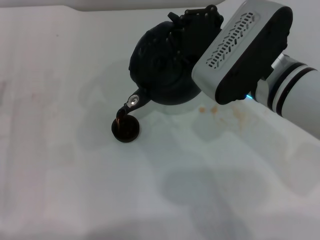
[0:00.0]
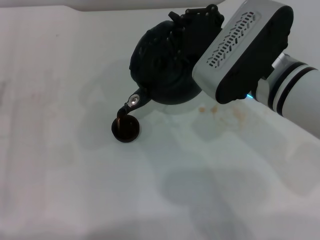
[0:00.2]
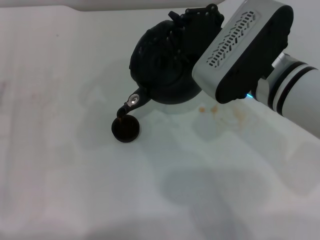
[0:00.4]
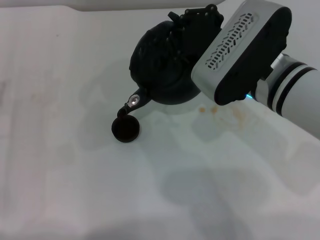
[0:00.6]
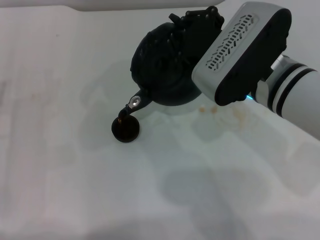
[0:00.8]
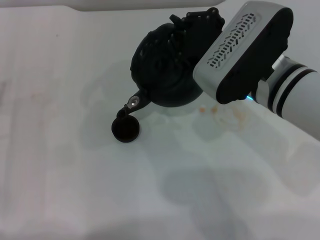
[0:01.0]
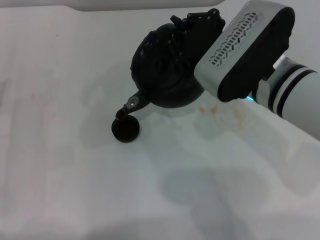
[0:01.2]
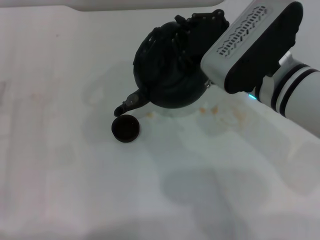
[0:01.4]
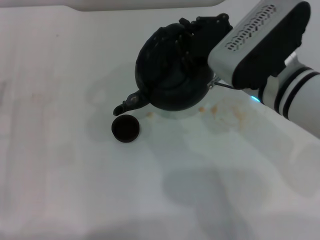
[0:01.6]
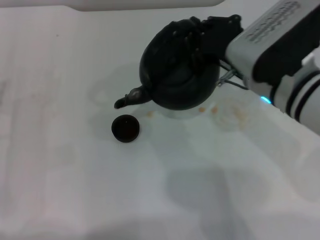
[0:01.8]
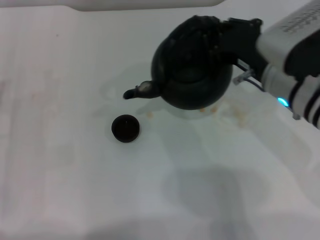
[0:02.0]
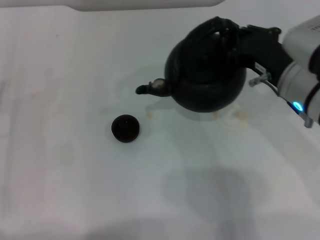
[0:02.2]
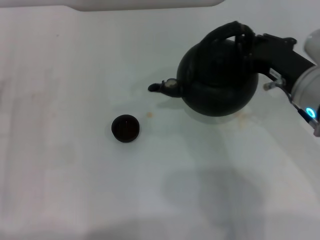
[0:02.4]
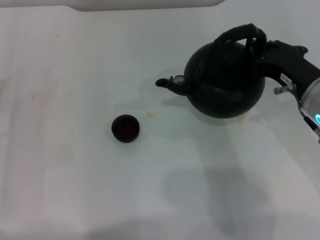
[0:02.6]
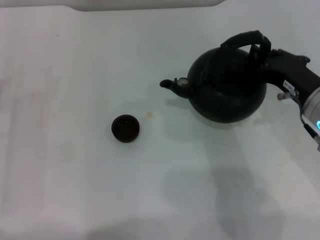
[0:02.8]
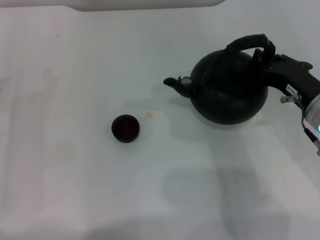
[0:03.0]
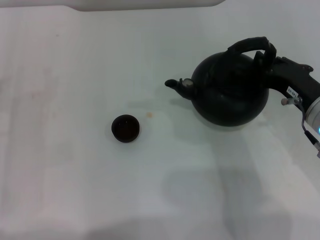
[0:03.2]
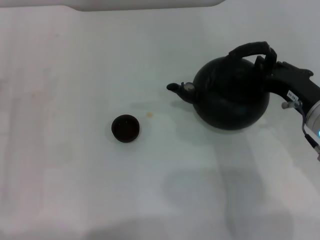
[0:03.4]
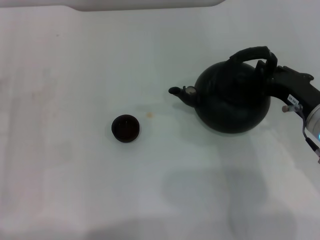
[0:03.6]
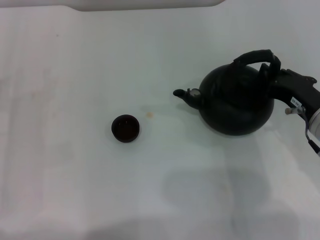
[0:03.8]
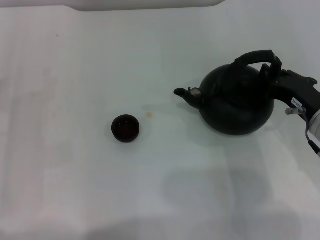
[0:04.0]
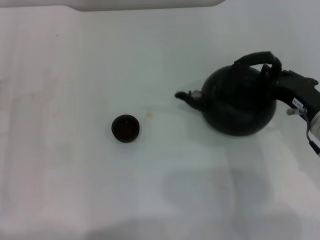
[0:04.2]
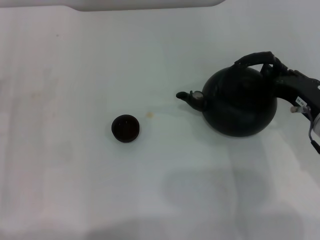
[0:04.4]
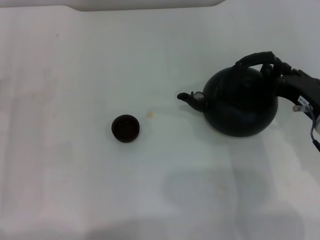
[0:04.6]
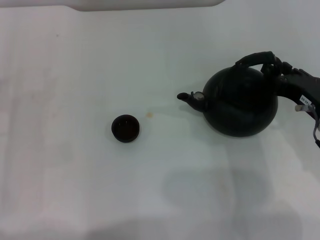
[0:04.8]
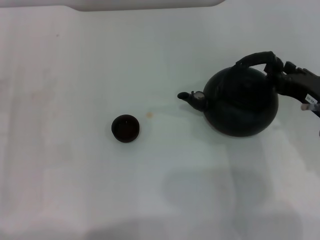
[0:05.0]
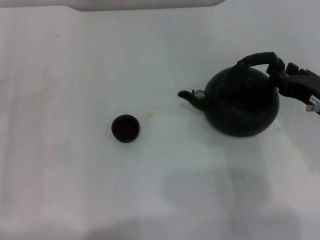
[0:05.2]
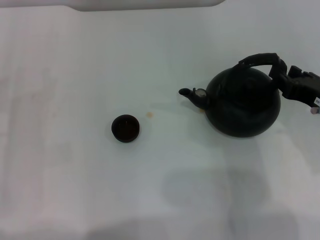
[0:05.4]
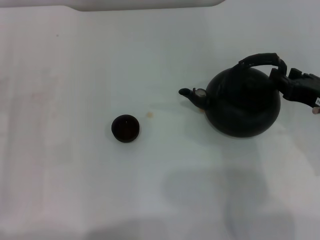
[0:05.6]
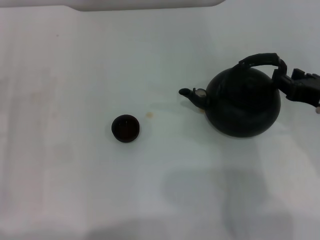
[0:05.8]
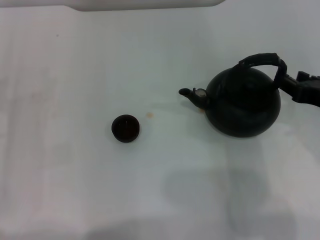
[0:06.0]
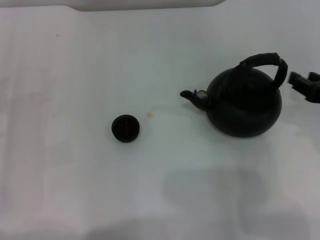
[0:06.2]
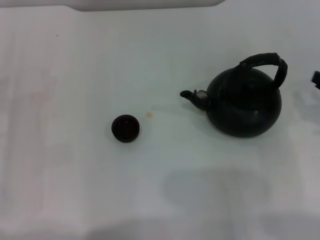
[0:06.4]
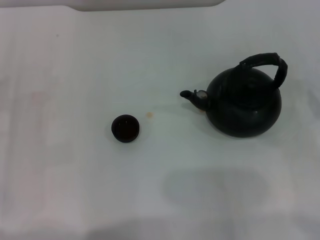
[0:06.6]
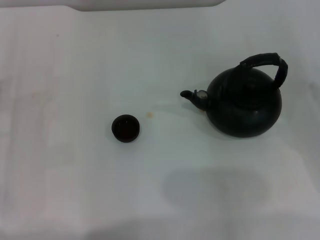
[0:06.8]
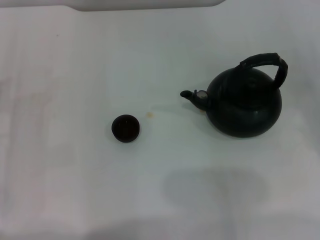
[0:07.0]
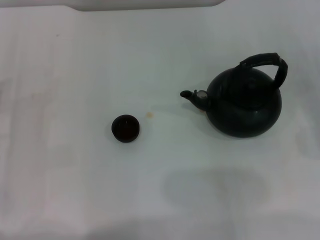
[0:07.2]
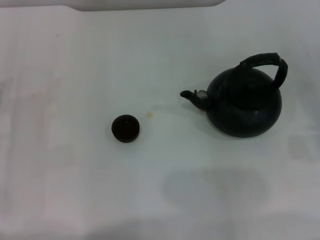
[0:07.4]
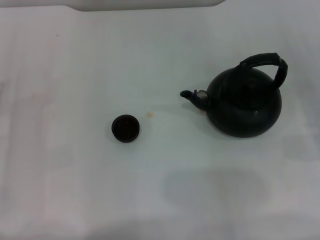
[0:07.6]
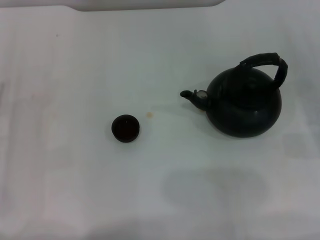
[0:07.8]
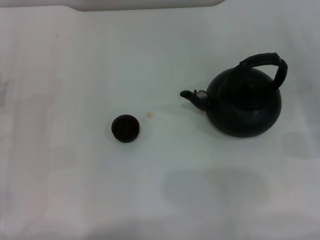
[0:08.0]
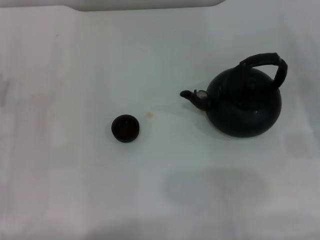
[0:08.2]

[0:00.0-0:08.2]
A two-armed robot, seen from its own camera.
Task of the whole recording: Grasp the handle of the teapot with one hand and pour tea into the teacup.
Step, 0.0 to 2.0 s: Pour tea into the teacup with the right gripper.
Step, 2.2 to 6.2 s: Put down the teapot with the right gripper.
0.0 to 1.6 s: The grippers make only small movements.
1.6 to 3.2 s: The right gripper is displaced to the right and downward by some 10 cm.
3.2 to 5.0 s: The right gripper opens up.
5.0 to 6.6 s: The right gripper heads to the right, covering roughly 10 cm.

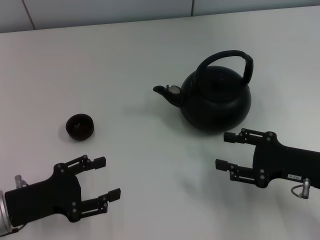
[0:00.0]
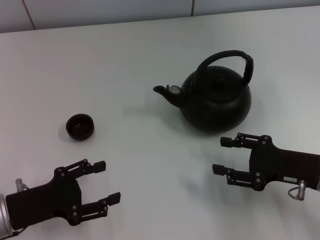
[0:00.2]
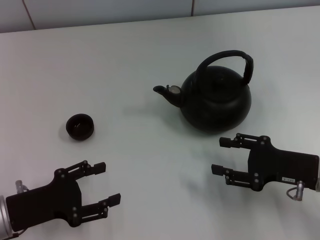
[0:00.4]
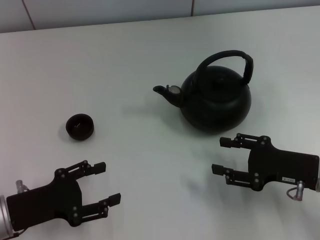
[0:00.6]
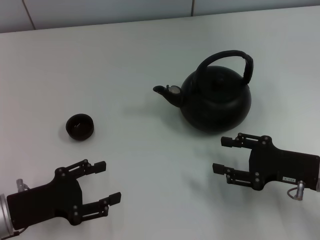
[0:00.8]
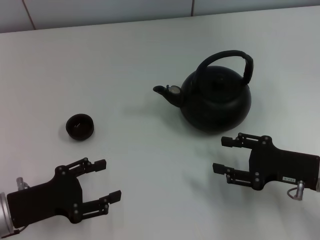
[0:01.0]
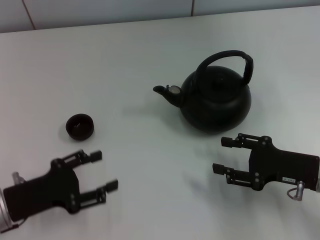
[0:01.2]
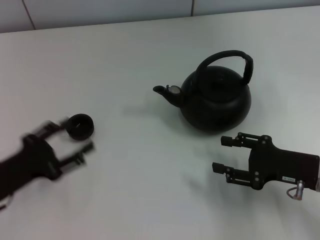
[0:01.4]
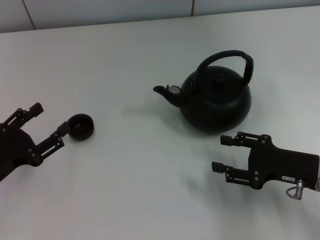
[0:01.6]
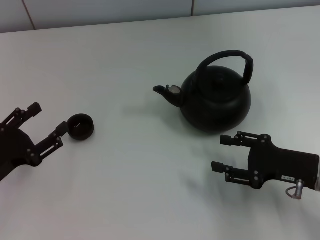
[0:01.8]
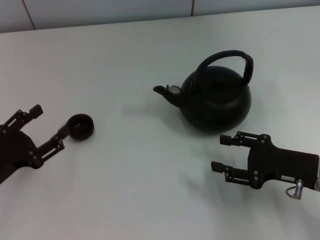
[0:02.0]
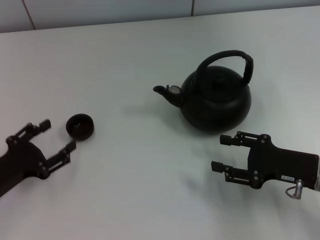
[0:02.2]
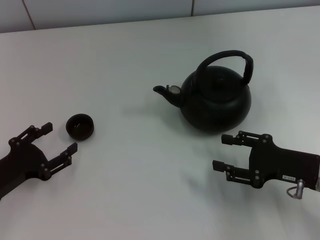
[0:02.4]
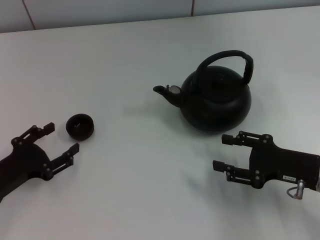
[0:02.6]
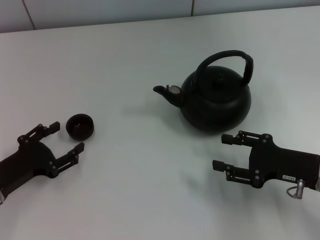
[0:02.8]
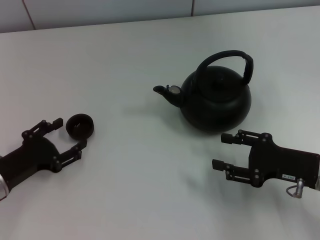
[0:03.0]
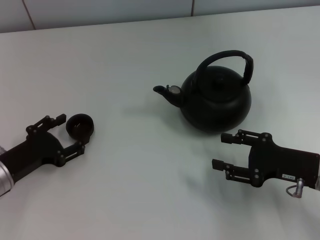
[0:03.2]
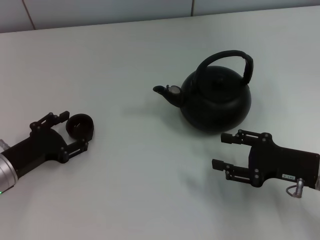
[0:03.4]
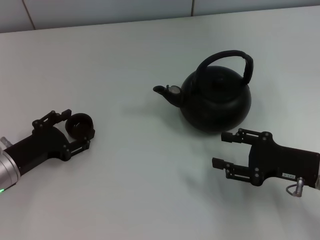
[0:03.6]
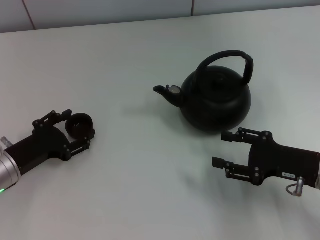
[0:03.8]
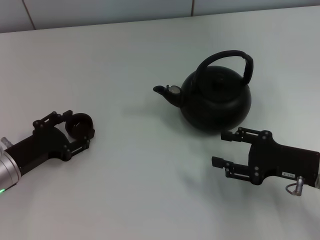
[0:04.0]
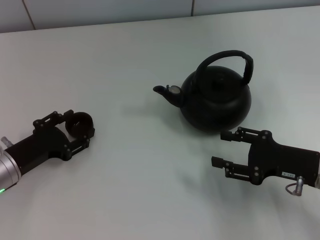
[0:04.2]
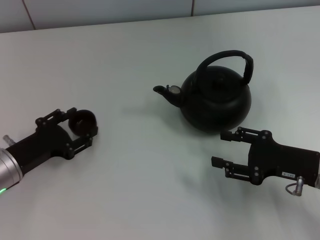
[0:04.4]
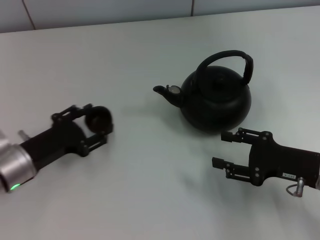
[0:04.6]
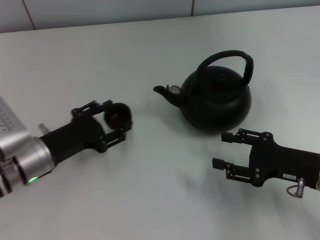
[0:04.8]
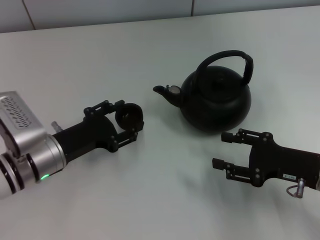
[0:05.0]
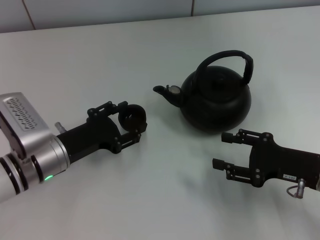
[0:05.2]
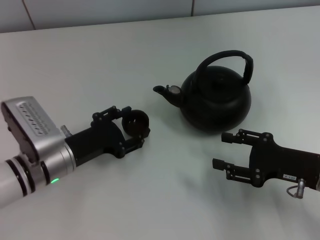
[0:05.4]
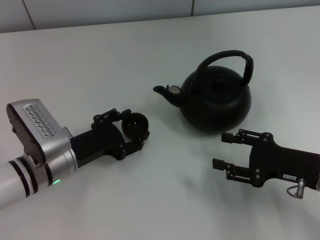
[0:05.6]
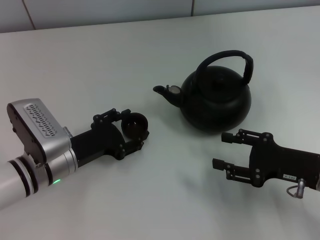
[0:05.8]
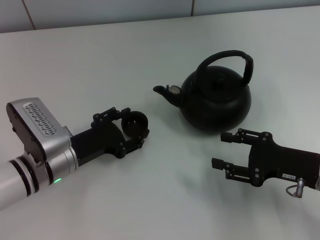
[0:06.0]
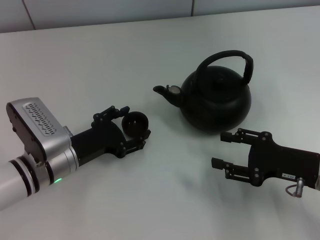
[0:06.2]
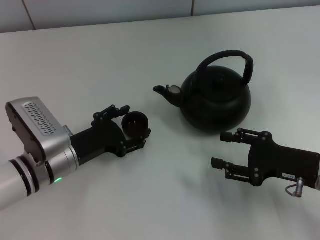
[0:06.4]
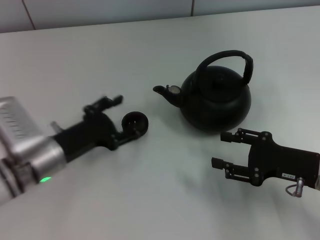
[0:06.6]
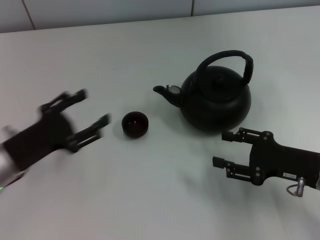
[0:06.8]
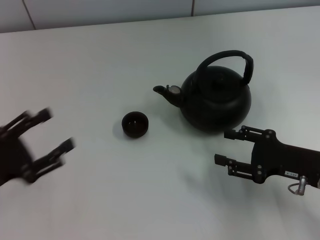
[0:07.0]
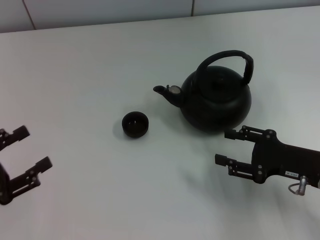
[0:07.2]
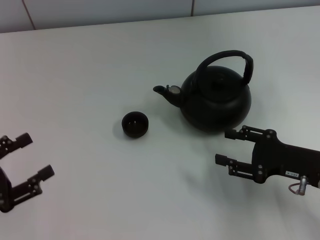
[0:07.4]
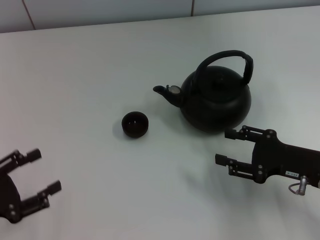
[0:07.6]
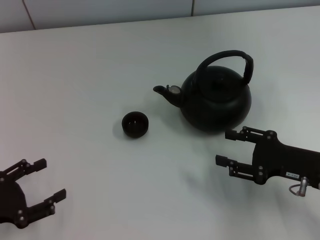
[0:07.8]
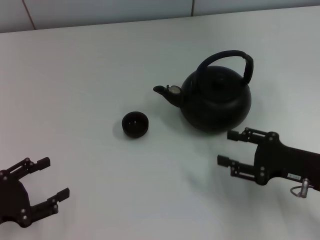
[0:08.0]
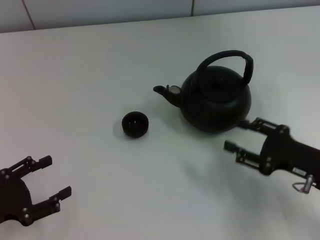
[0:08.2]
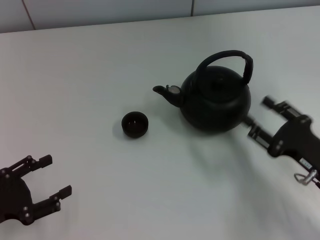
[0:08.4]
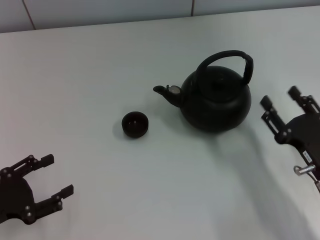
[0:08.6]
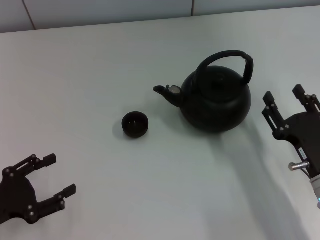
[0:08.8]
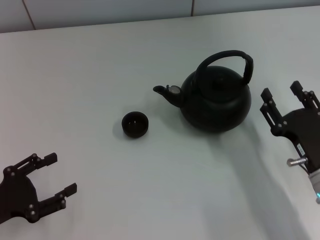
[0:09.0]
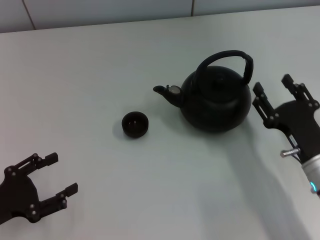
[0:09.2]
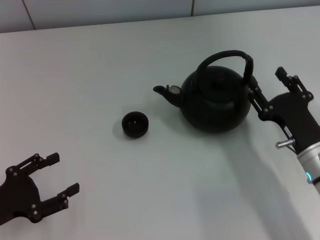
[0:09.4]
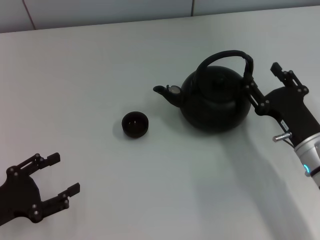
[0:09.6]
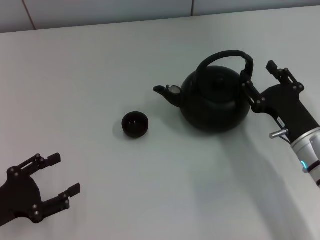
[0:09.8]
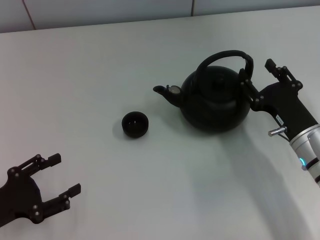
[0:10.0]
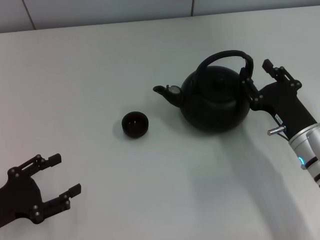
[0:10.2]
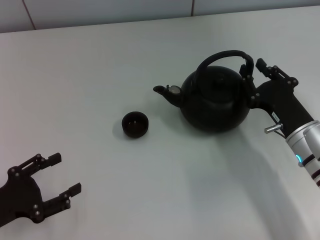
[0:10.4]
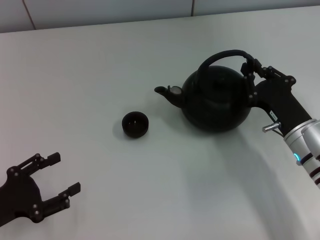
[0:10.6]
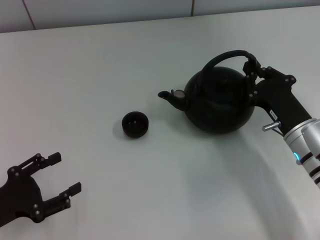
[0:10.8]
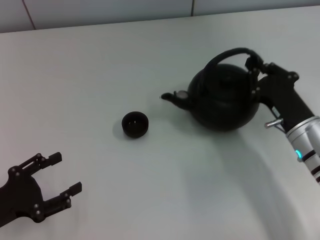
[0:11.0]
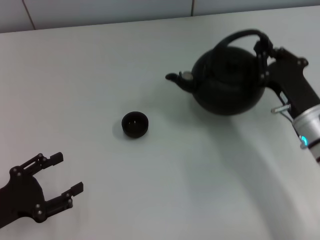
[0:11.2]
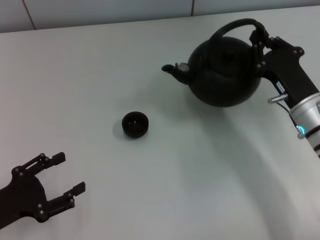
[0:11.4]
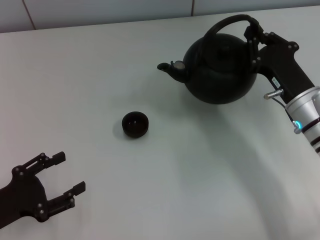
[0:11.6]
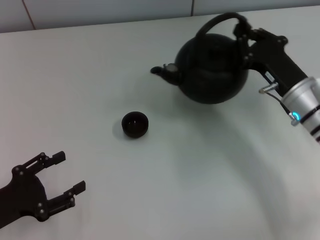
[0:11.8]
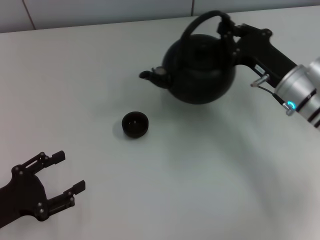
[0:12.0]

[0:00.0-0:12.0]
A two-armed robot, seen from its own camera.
Task of the whole recording: Grasp the handle of the teapot with one hand and pour tea into the teacup.
Step, 0.0 to 4.4 s: Pick up the teacup with the left gripper.
Step, 4.6 to 6.4 s: Place the teacup in the center of view with the left gripper.
Step, 6.8 to 11.2 s: Pick up the teapot with the right gripper.
1.6 to 4.4 s: The grippers stay close to where they were, moving slightly.
4.4 to 6.0 s: The left gripper heads to the right, covering approximately 10 cm.
6.0 to 7.6 s: The left gripper is displaced to the left and backward by approximately 20 cm.
7.6 to 9.0 s: The right gripper moves approximately 5 cm.
9.0 to 10.4 s: The right gripper moves forward, about 5 cm.
10.4 to 12.0 s: The right gripper travels forward by approximately 10 cm, and closes.

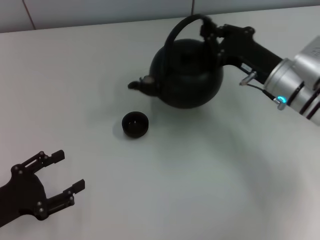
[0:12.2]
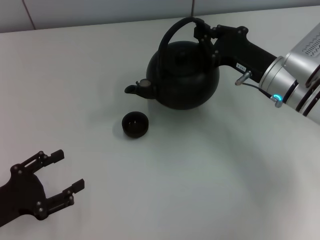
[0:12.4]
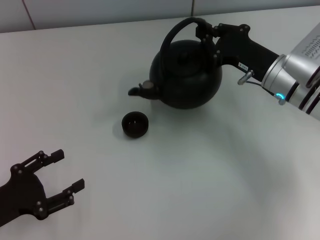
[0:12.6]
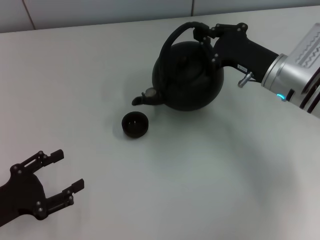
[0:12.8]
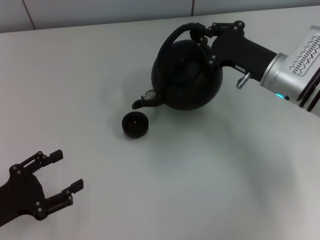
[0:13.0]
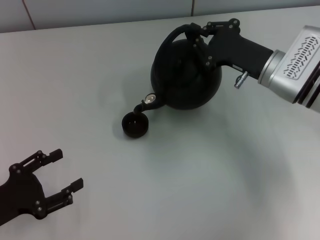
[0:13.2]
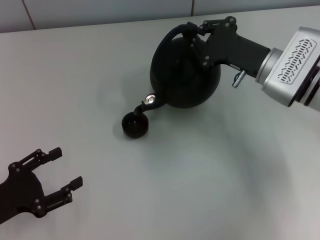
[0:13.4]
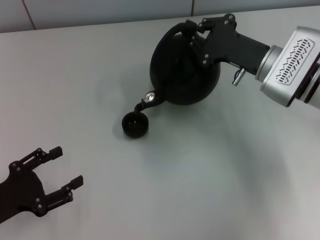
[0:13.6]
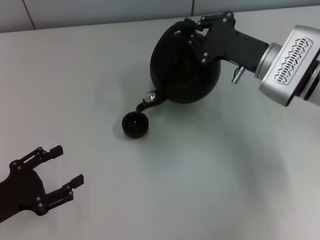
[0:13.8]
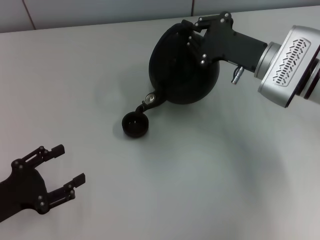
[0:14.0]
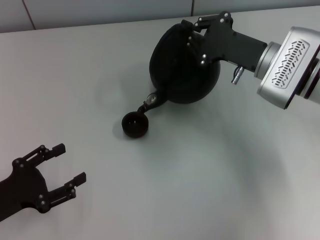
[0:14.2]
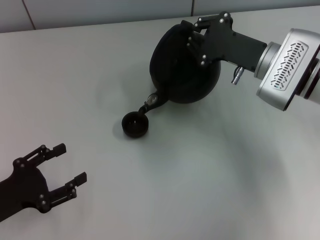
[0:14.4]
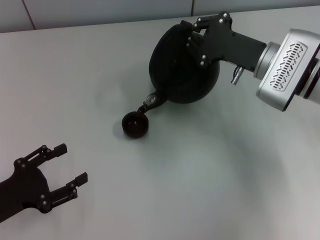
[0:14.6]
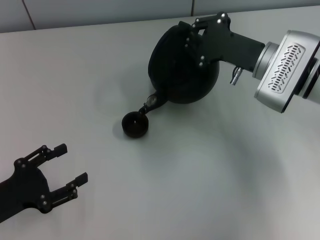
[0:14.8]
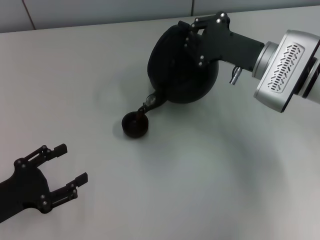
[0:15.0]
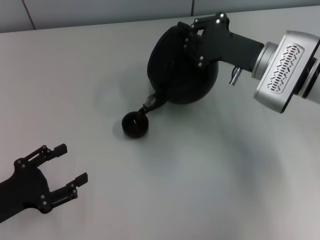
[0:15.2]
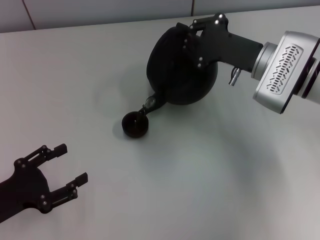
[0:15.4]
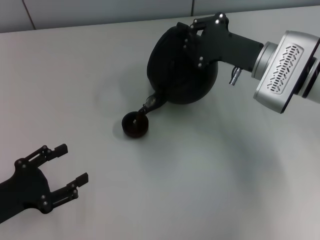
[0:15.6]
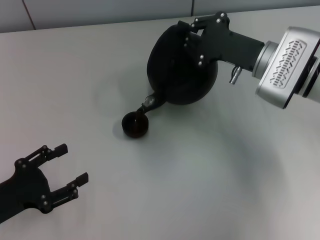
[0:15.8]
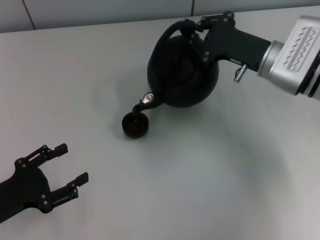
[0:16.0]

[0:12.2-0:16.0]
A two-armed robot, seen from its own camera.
Task of the whole recording: Grasp the handle of the teapot with one hand and pour tea into the teacup.
13.4 to 16.0 s: The grippers make only small movements.
